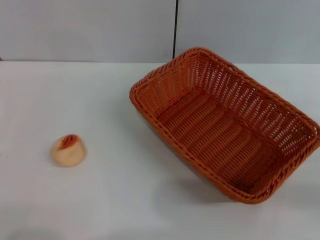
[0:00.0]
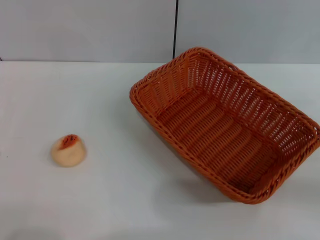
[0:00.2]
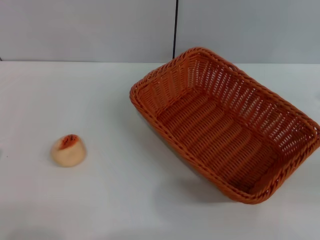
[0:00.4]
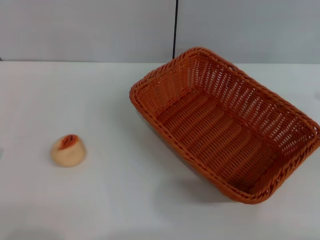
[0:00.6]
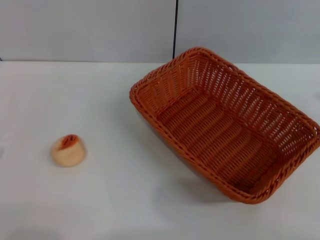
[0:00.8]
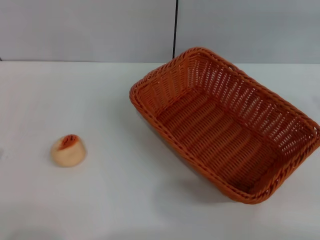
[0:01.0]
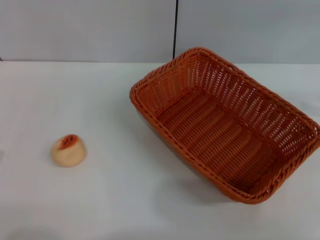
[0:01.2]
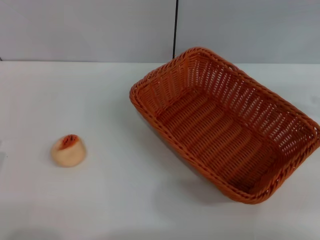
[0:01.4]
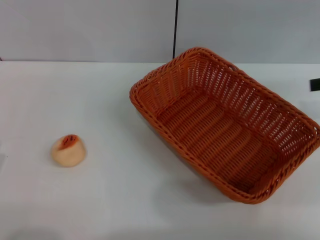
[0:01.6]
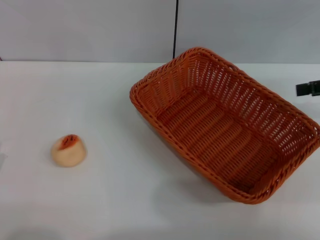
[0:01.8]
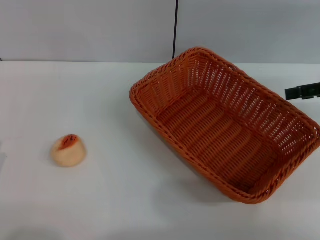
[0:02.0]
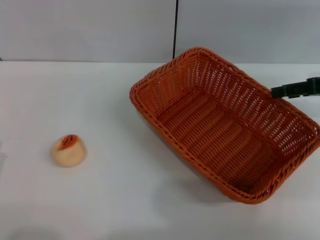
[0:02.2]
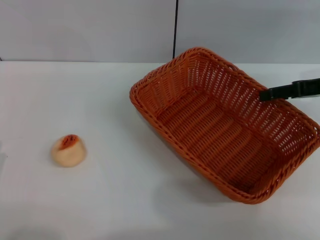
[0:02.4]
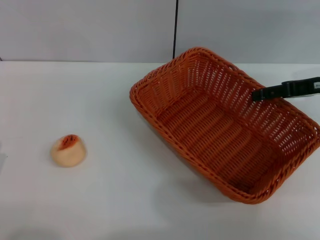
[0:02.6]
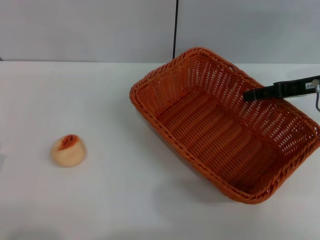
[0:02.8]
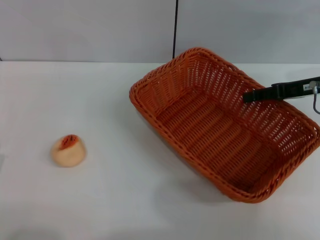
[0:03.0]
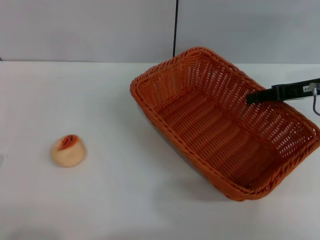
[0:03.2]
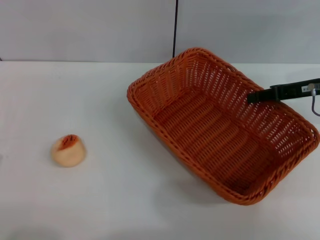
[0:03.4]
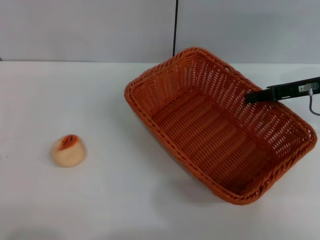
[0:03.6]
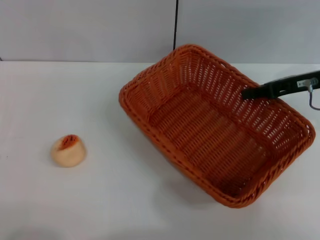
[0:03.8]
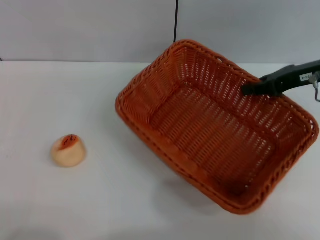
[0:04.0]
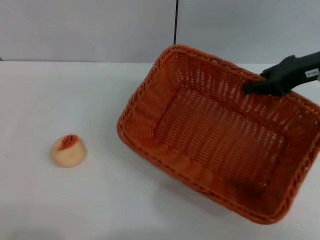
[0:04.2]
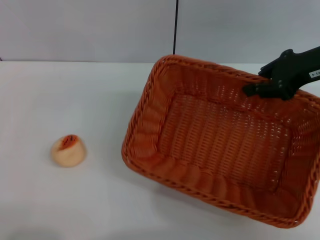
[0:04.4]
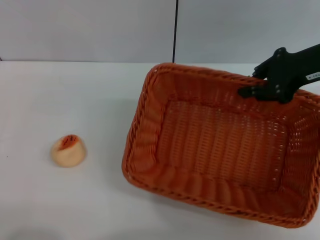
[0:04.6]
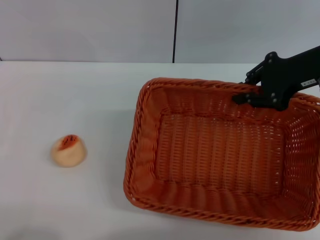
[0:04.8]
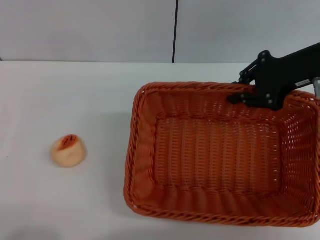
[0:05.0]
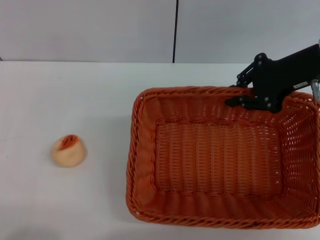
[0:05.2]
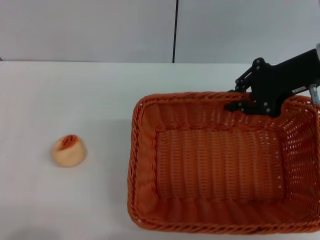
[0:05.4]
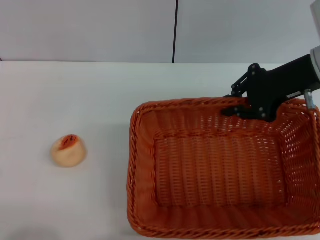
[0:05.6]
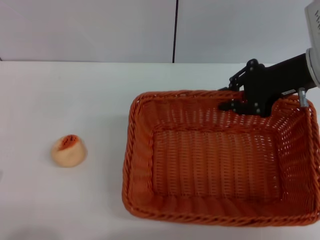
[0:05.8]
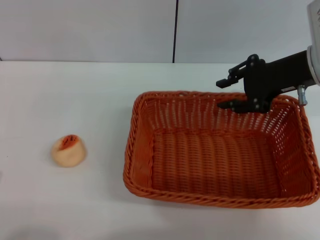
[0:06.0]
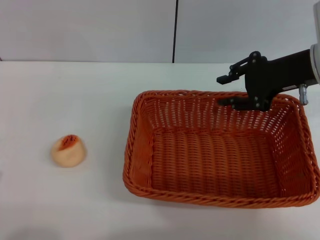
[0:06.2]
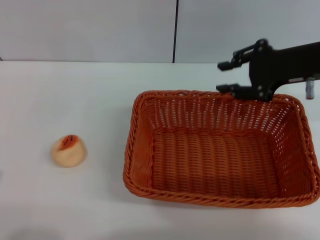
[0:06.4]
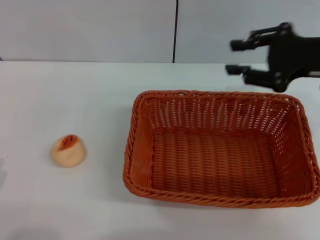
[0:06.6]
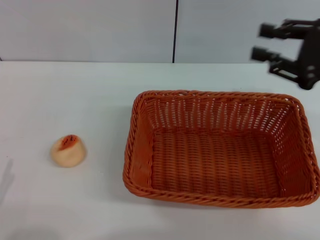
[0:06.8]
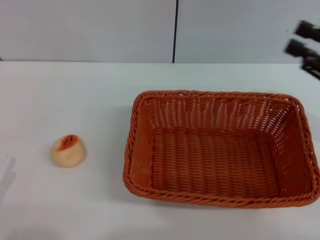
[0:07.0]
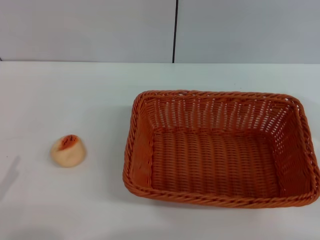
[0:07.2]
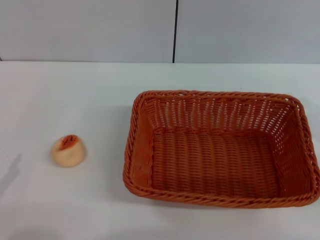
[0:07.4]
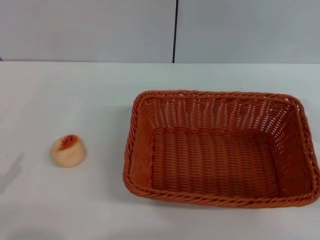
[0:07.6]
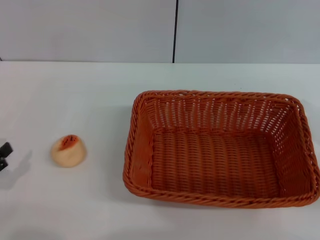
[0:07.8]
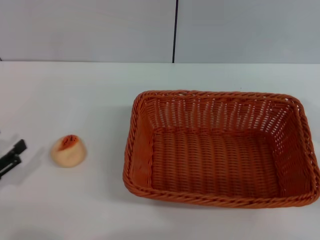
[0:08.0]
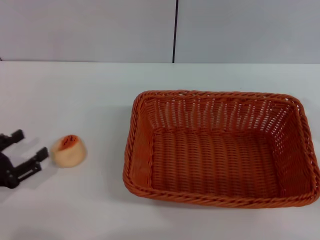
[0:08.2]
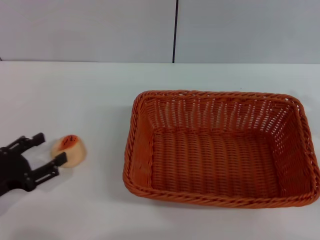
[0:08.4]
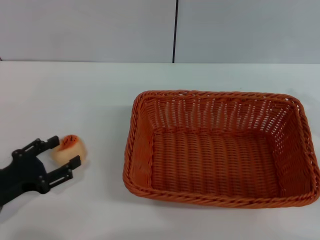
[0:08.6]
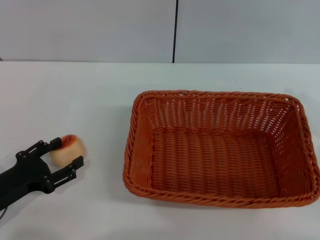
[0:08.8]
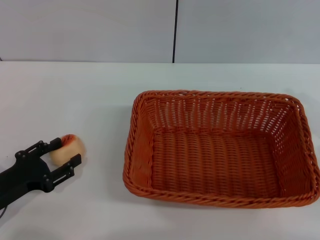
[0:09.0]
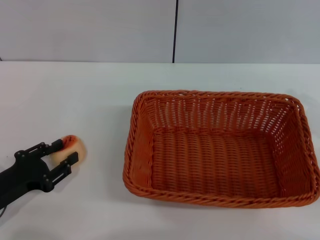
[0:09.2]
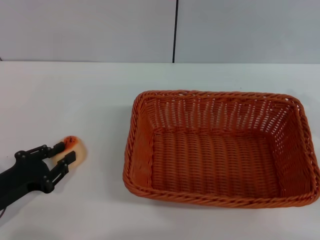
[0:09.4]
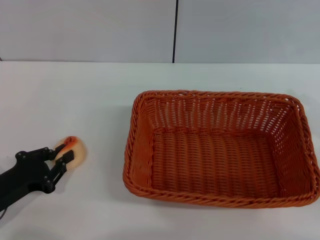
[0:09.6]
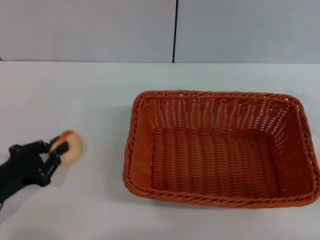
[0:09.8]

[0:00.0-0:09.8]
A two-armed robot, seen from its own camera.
Step, 0:00.0 to 0:06.2: Move the basket to the center of view with the right gripper.
0:01.4 to 0:02.8: The right gripper moves to the left, downward and forward, about 15 cm.
0:02.8 to 0:04.2: The right gripper heads upward, covering approximately 5 cm, and closes up.
0:05.6 to 0:07.0: The right gripper moves backward and to the right, approximately 15 cm, and opens its fingers.
0:07.0 to 0:08.4: The left gripper goes some 10 cm forward. The right gripper shifts by approximately 5 cm.
0:08.4 to 0:09.8: The left gripper closes its fingers.

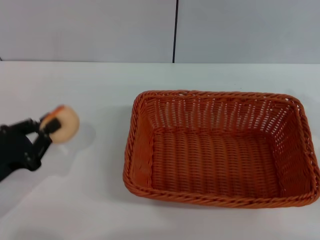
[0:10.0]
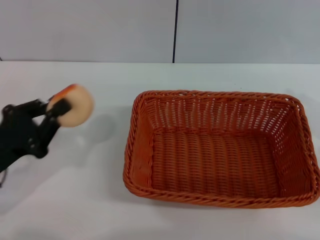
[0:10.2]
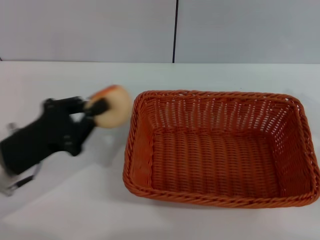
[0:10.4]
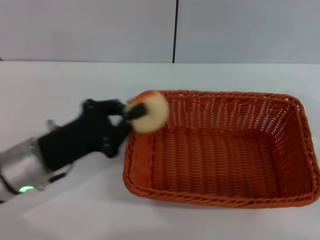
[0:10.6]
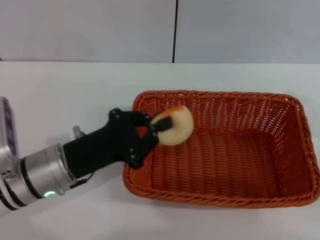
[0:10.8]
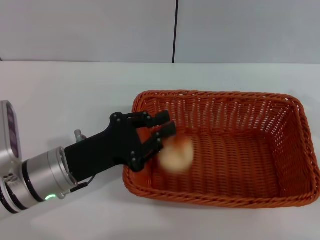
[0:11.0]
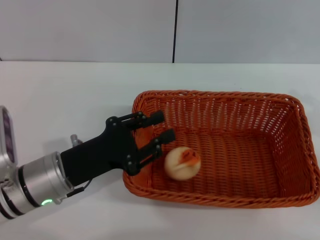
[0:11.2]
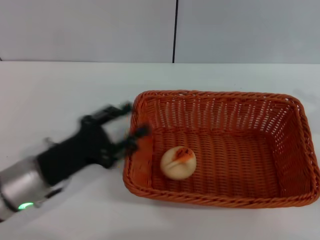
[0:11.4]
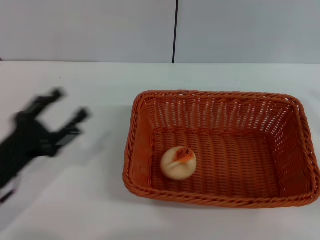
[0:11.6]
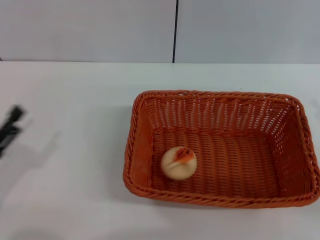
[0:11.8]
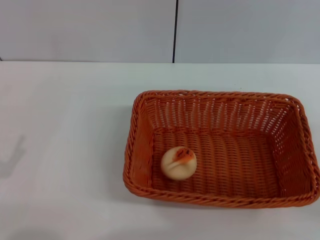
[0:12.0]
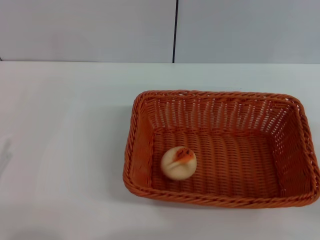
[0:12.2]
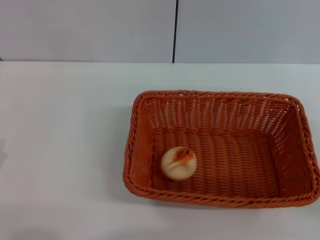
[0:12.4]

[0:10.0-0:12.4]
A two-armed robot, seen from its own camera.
Step, 0:10.4 to 0:11.2: Place the egg yolk pastry into the basket with the left gripper.
0:10.0 to 0:11.2: The left gripper shifts about 10 cm to the right.
0:11.2 to 0:12.4: The right gripper changes place by approximately 5 cm, and opens up; the left gripper travels to the left and backward by about 20 cm, and opens.

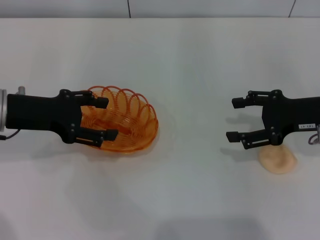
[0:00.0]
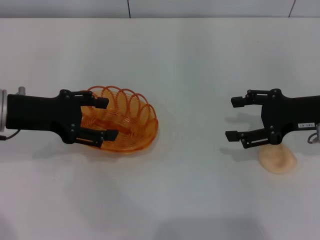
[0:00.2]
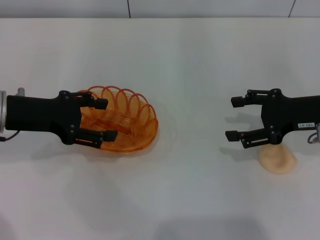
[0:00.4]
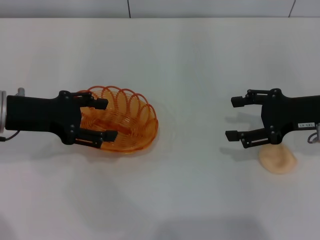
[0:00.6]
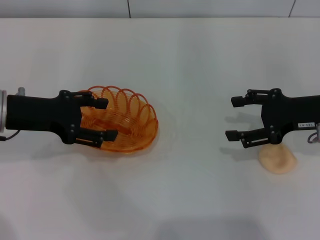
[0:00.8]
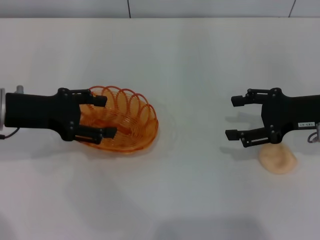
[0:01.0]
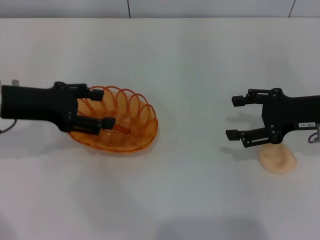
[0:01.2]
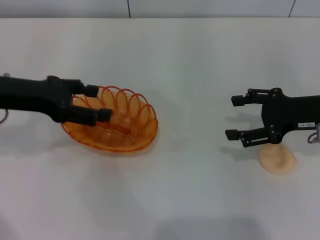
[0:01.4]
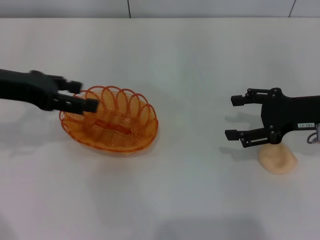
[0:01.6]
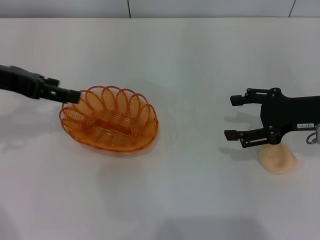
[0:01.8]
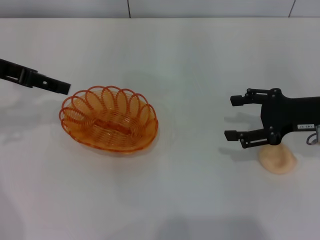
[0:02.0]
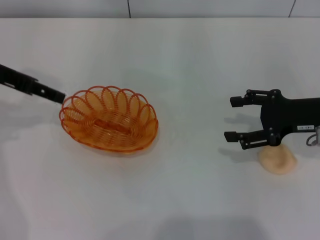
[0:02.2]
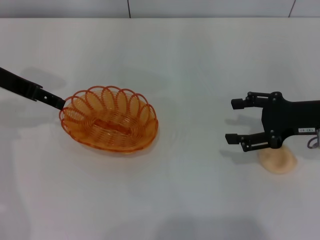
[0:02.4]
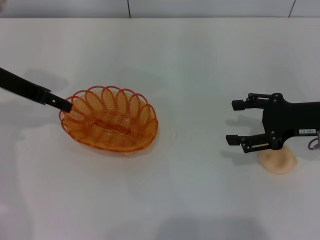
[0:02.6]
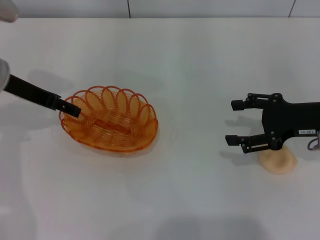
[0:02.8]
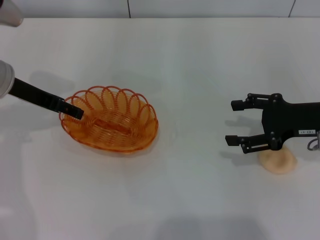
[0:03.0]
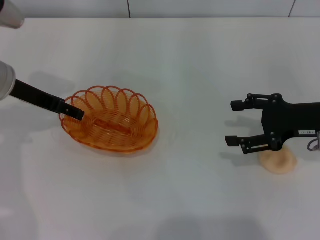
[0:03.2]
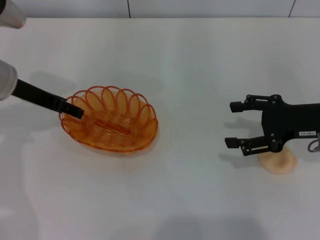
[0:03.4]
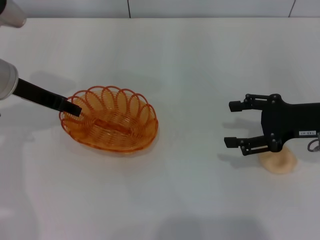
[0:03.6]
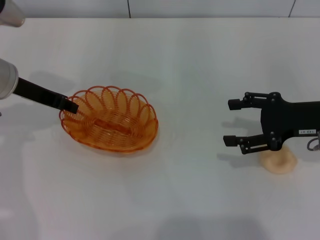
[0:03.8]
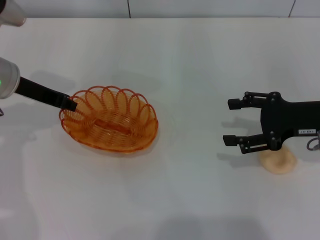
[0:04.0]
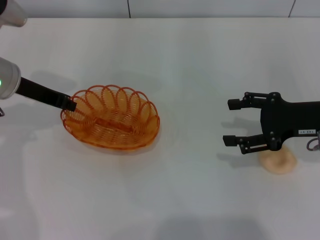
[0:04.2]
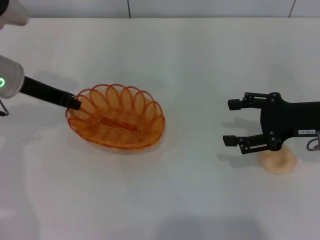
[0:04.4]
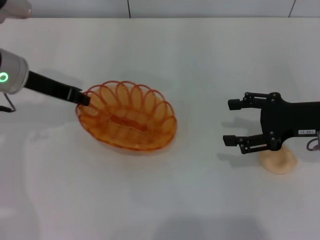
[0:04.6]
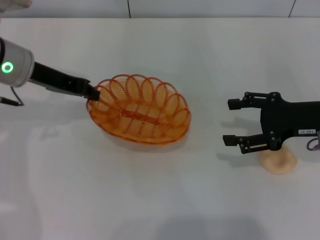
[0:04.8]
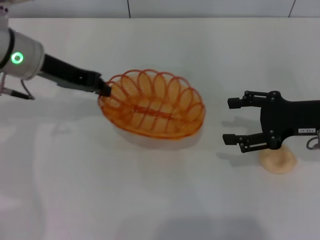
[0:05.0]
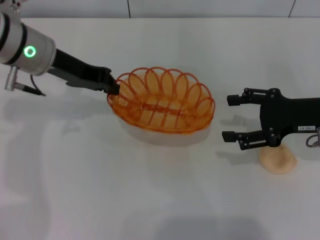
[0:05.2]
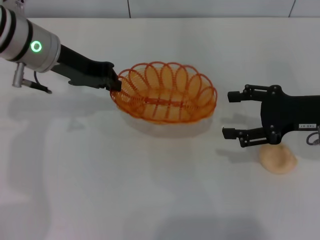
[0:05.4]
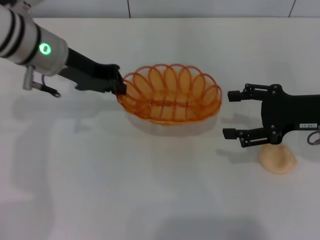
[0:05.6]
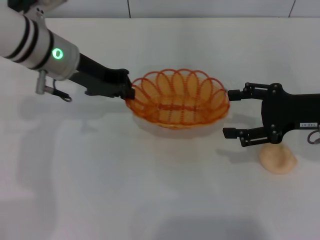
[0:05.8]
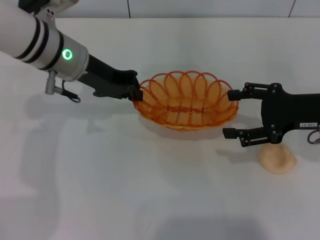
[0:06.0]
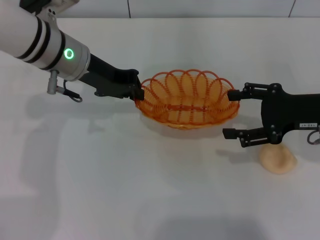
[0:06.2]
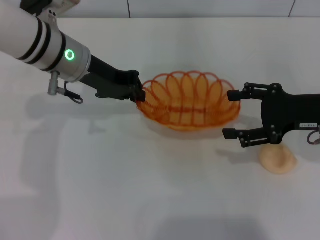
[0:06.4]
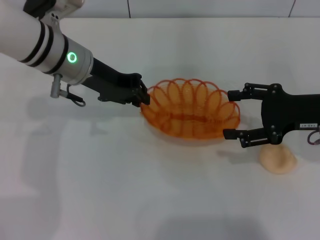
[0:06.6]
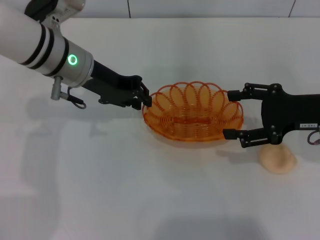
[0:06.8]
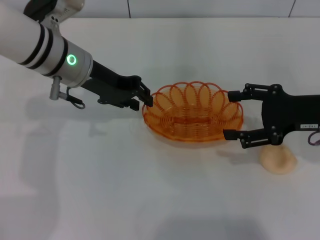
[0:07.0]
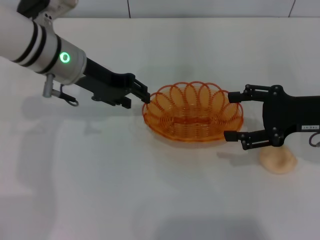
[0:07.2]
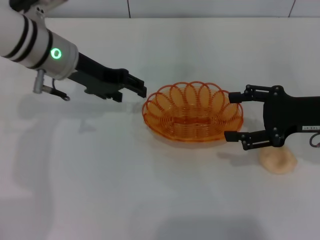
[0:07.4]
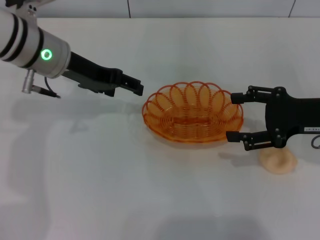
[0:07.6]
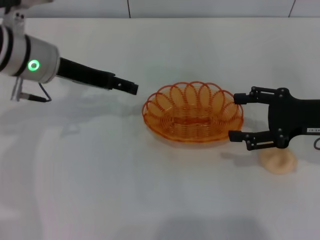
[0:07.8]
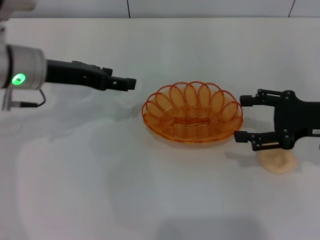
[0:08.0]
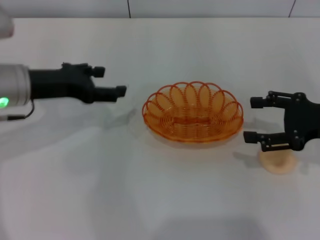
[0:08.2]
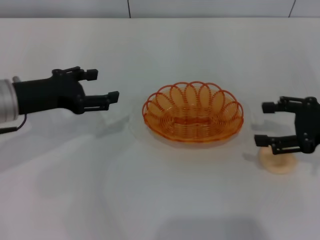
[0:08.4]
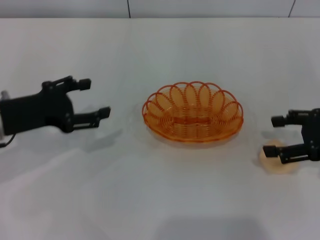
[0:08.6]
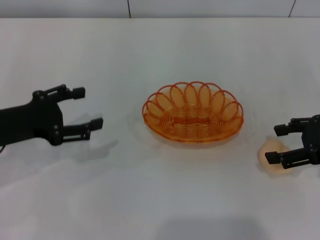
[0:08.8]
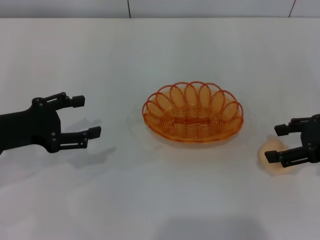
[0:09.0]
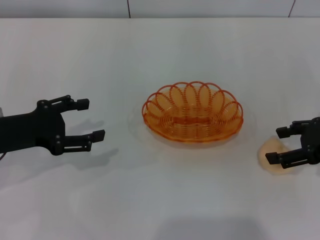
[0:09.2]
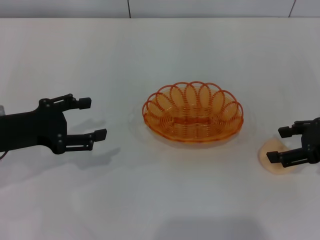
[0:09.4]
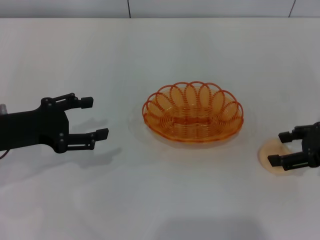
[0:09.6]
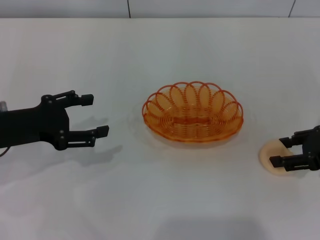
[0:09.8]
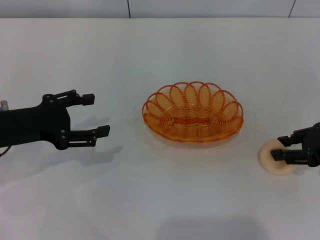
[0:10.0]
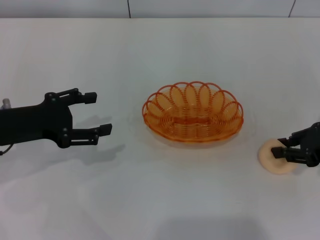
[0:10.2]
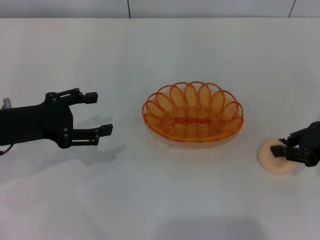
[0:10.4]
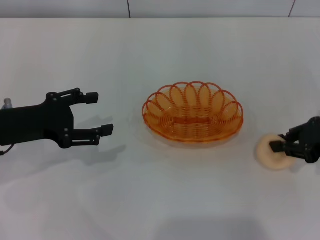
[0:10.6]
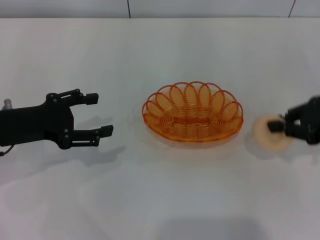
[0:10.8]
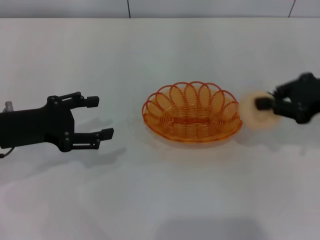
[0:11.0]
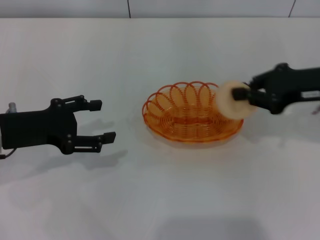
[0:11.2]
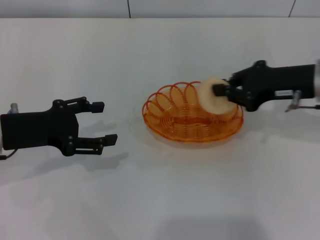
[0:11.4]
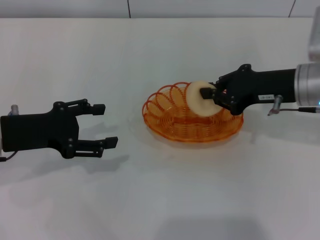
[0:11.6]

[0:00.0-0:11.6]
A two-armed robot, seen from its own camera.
Step, 0:00.0 to 0:05.2: Pick up the basket with the left gripper.
Step, 0:05.4 to 0:07.8: Place the basket in the center of view with the left gripper.
Step, 0:08.0 to 0:11.0: Pick up the egg yolk pastry with the right gripper.
0:00.0 to 0:01.4: The grippers make only small movements.
0:01.4 to 0:02.8: The left gripper travels forward by some 5 cm.
0:02.8 to 0:04.4: The left gripper closes up.
0:04.4 to 0:05.8: The left gripper travels to the right by about 10 cm.
0:05.8 to 0:07.2: The left gripper opens up.
0:07.2 to 0:08.8: The left gripper travels to the left and backward by approximately 15 cm, and opens up.
0:08.8 to 0:10.2: The right gripper closes.
0:10.2 to 0:11.6: The right gripper is displaced to the left by approximately 10 cm, and closes up.
